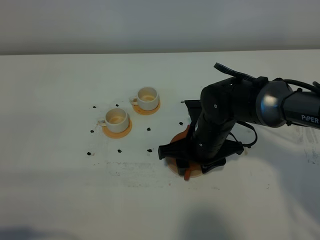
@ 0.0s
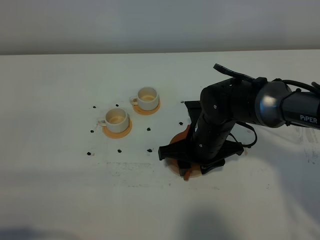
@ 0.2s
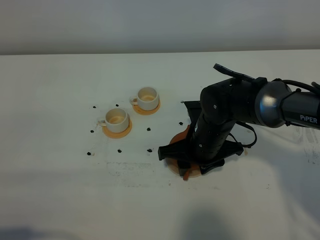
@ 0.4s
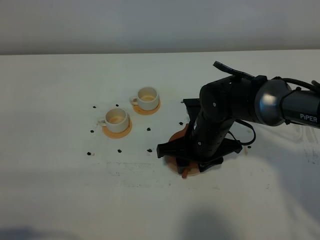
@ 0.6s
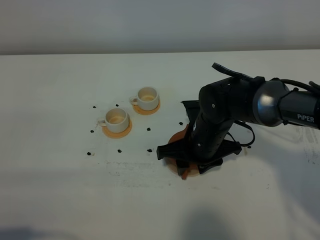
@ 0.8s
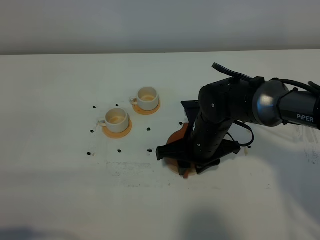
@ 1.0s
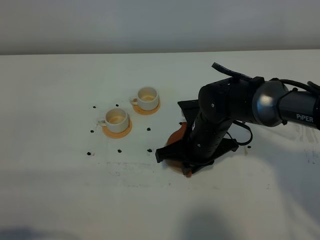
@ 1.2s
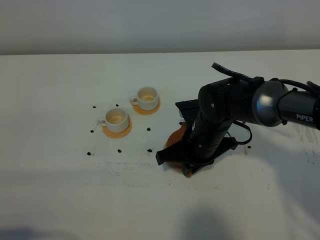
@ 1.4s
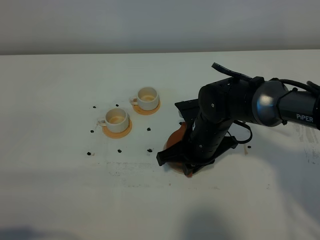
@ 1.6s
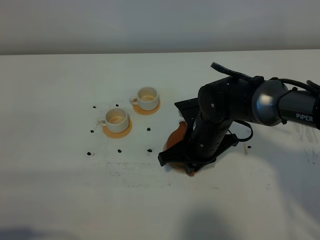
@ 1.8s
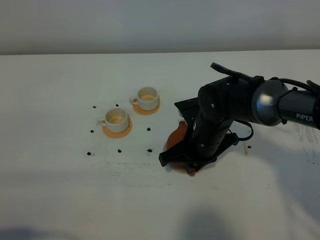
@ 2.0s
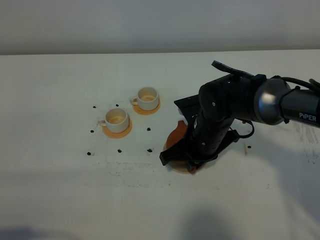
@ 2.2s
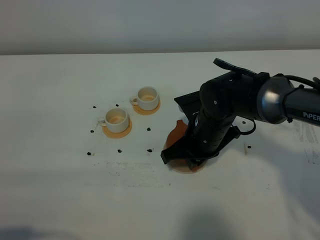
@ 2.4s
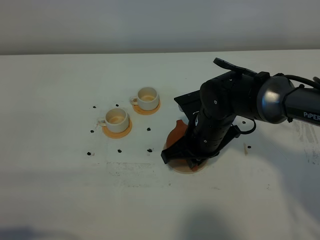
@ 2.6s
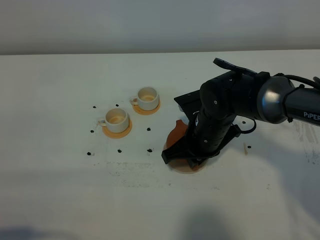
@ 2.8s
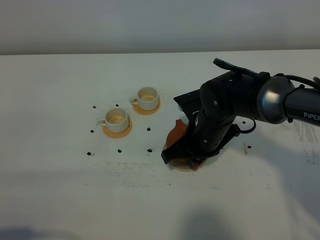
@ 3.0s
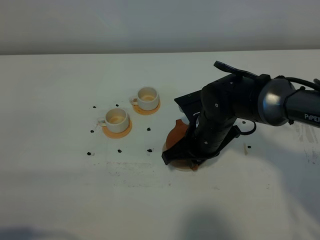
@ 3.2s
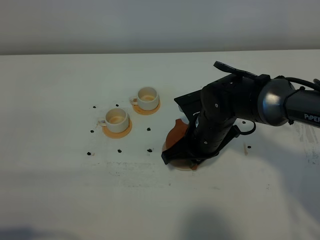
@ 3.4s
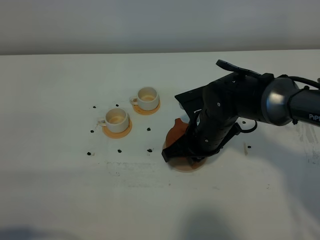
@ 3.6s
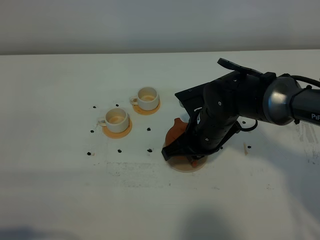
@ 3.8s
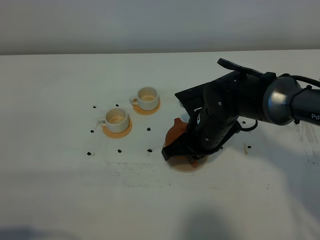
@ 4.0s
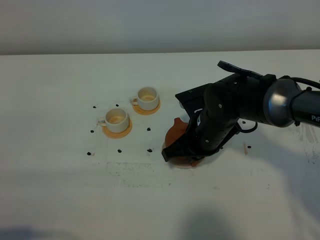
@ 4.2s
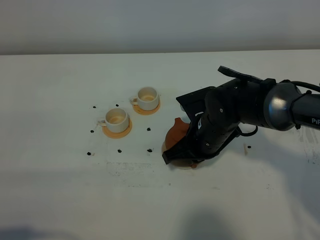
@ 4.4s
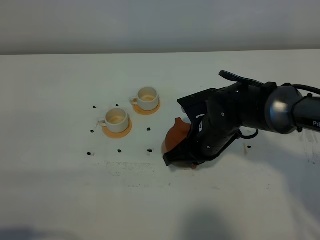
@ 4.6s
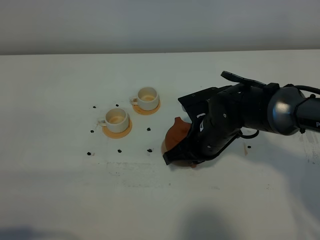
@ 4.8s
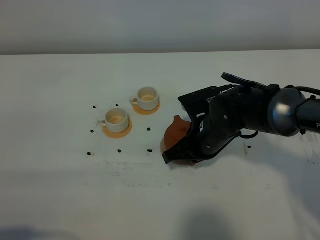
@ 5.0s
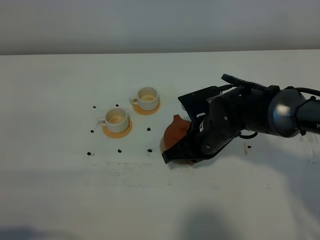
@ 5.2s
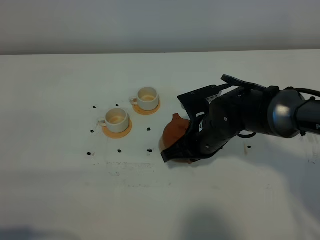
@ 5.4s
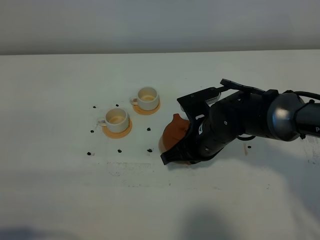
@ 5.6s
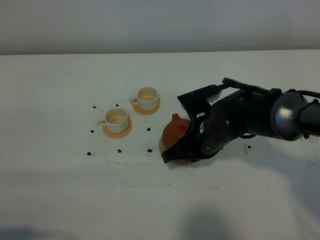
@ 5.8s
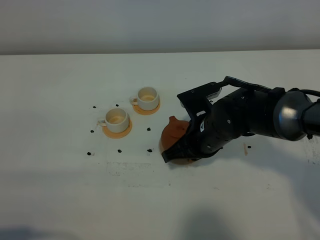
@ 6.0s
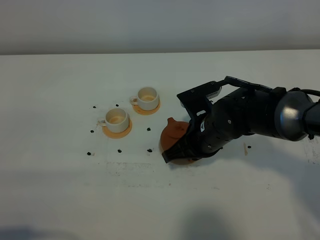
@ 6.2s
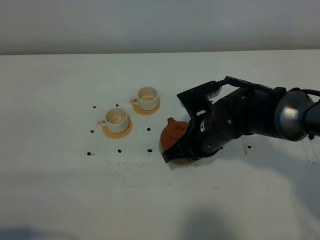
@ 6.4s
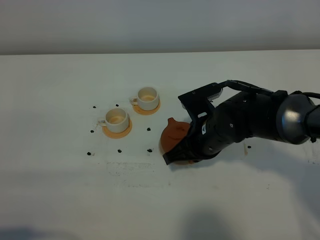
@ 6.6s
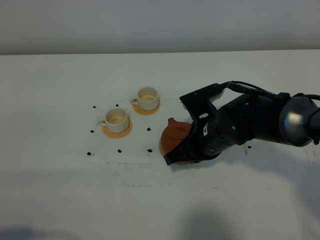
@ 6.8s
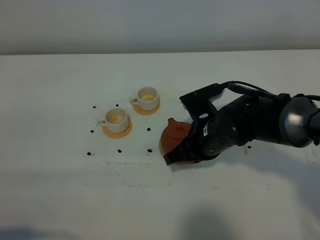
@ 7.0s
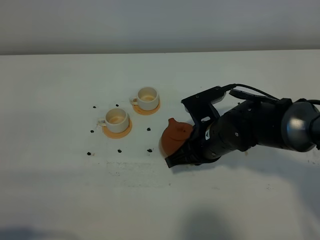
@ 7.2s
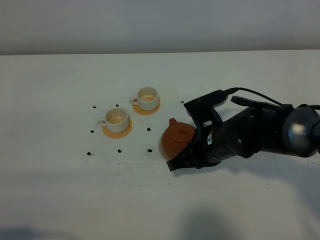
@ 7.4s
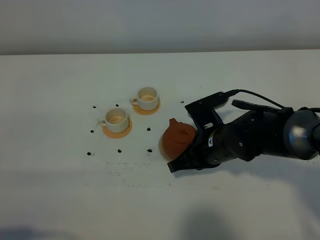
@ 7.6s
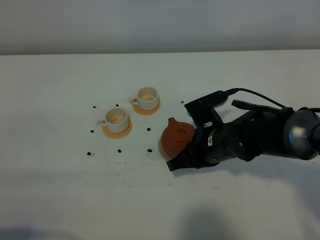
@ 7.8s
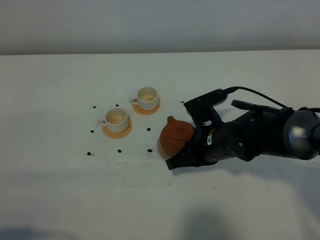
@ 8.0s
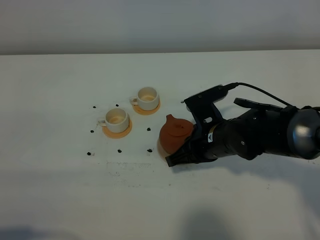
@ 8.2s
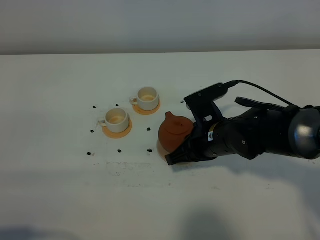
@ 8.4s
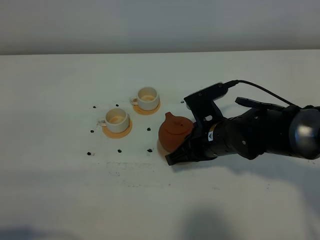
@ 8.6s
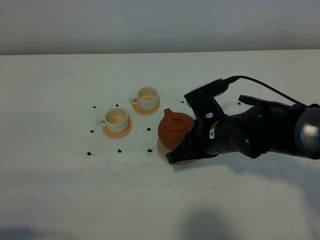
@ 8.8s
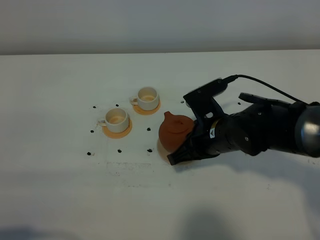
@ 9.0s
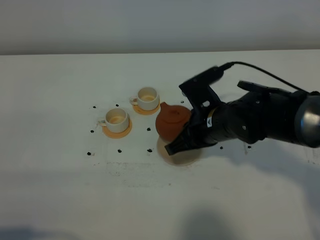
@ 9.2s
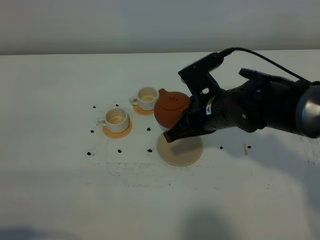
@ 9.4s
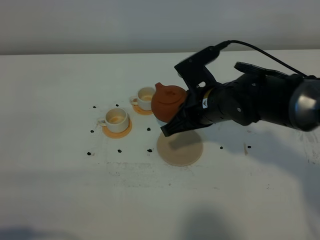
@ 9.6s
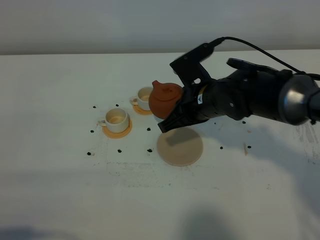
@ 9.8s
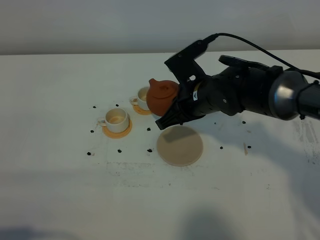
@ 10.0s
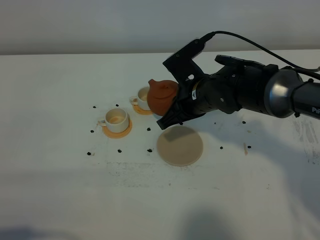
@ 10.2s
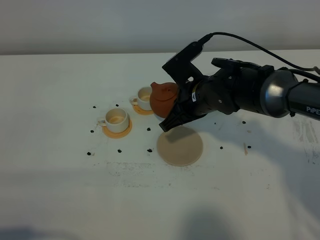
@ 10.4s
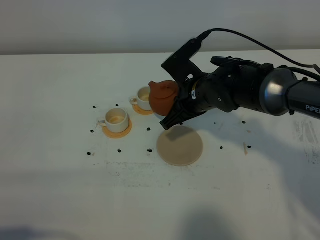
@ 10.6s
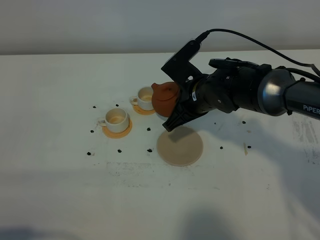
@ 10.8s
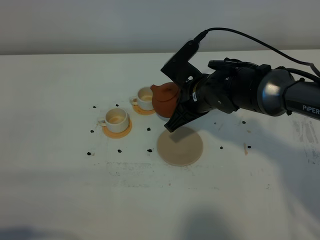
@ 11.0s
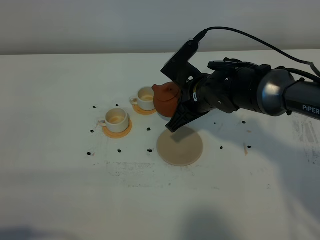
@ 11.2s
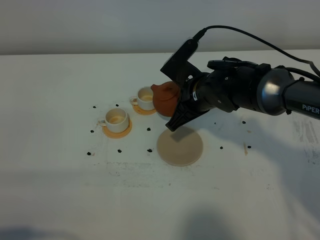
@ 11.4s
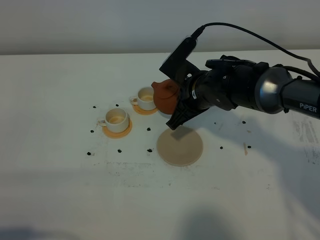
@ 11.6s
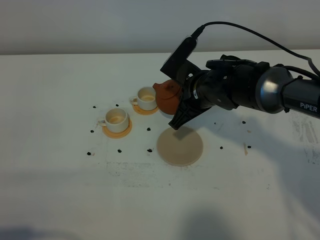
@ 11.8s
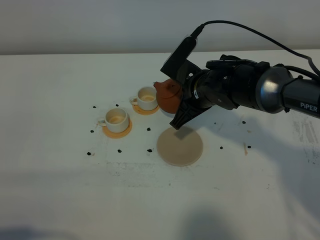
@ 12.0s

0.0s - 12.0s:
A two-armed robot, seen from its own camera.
Task of the whole recording: grasp the brown teapot and pour the tea into the two white teacups one by one, put the brown teapot back in its original place.
Step, 0.0s - 8.4s: Pick up the teapot with the right gripper.
0.0s - 1.6s: The right gripper closes.
1.6s - 3.0s: The grippers stay close to where they were, moving slightly.
3.0s - 4.4s: Neither gripper changes place.
4.4s - 7.6s: The grippers stay close to where they were, moving slightly.
7.6s - 9.0s: There are only small adjustments of the grippers.
9.0s - 10.4s: The right gripper travels forward by roughly 5 cm.
10.4s - 12.0s: The grippers make only small movements.

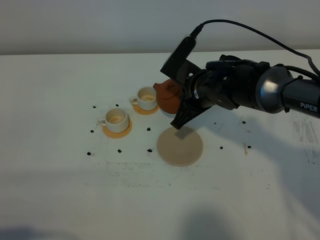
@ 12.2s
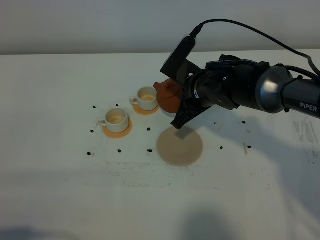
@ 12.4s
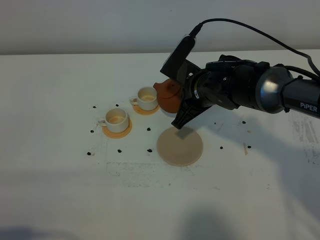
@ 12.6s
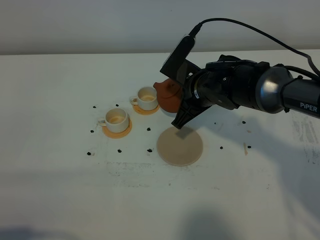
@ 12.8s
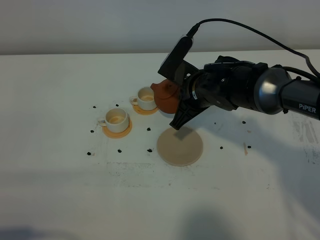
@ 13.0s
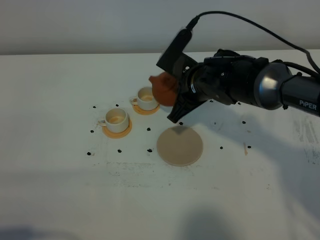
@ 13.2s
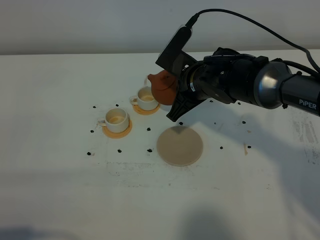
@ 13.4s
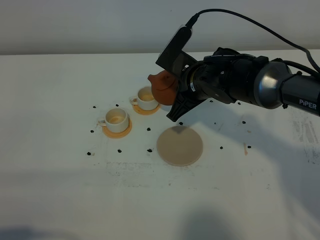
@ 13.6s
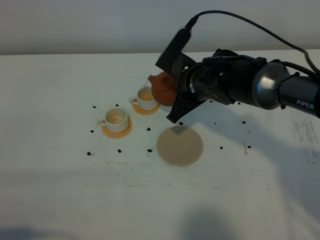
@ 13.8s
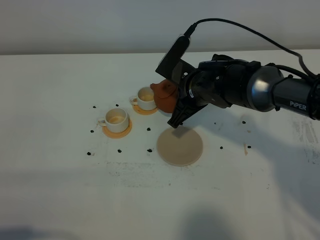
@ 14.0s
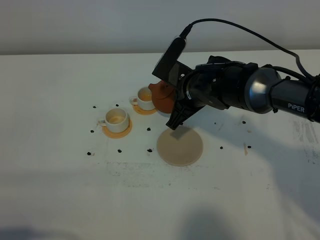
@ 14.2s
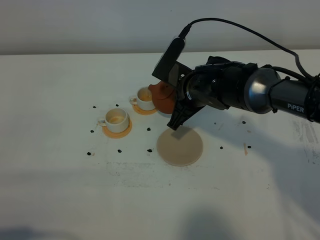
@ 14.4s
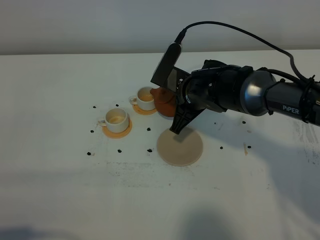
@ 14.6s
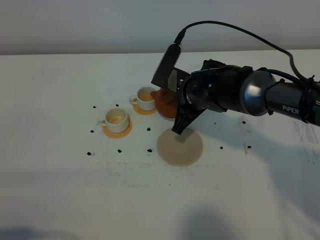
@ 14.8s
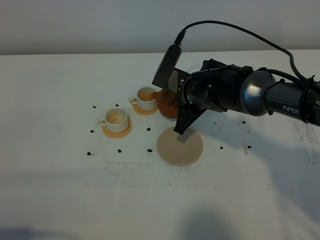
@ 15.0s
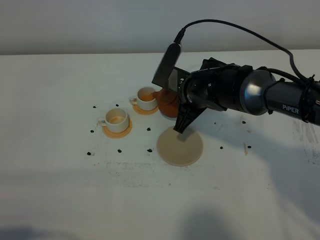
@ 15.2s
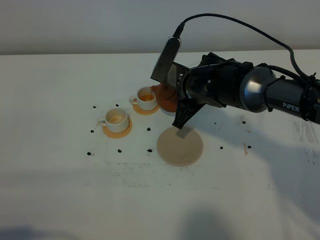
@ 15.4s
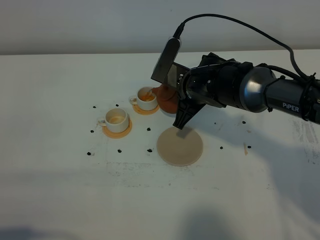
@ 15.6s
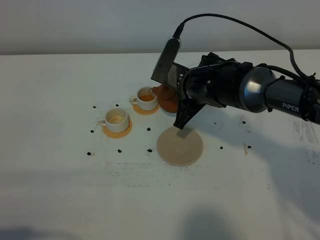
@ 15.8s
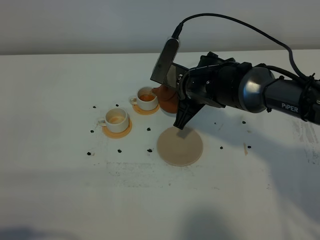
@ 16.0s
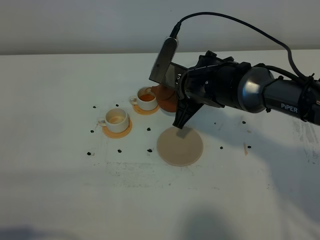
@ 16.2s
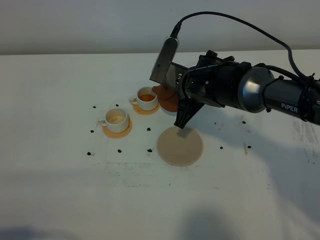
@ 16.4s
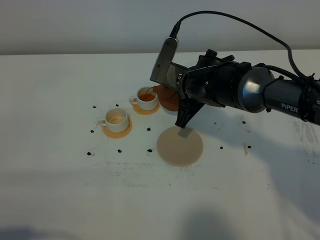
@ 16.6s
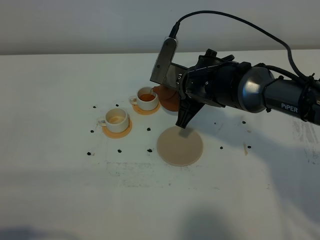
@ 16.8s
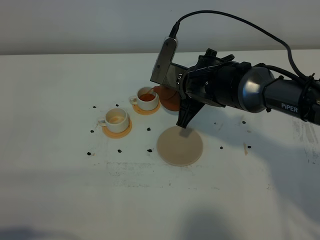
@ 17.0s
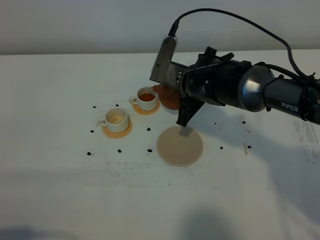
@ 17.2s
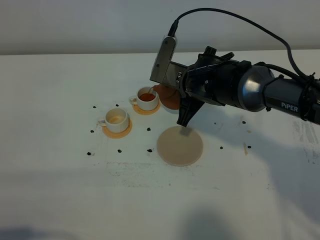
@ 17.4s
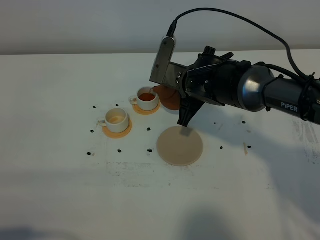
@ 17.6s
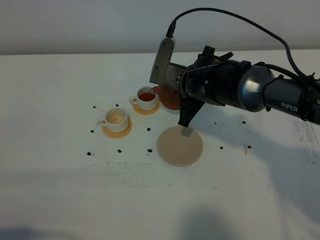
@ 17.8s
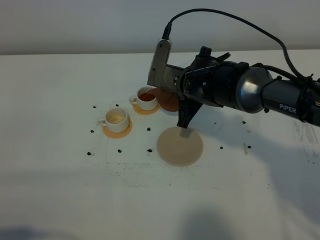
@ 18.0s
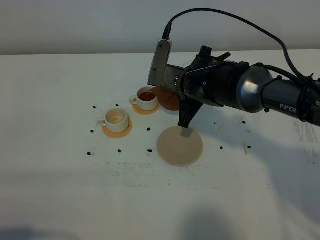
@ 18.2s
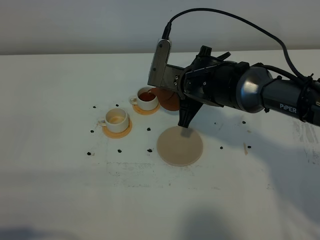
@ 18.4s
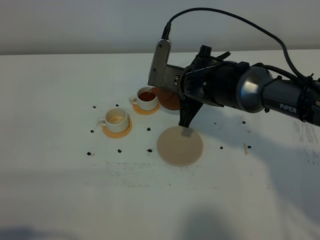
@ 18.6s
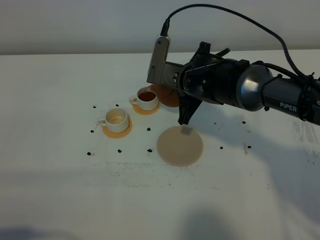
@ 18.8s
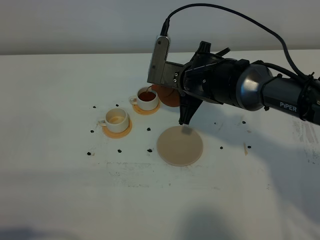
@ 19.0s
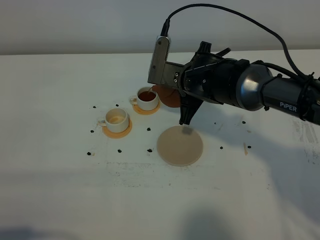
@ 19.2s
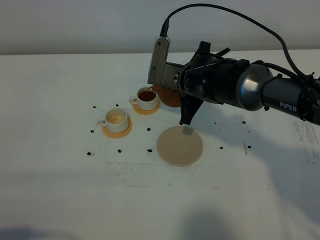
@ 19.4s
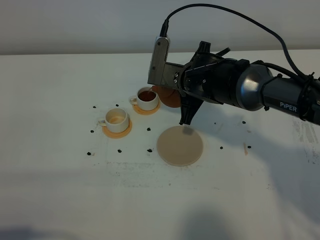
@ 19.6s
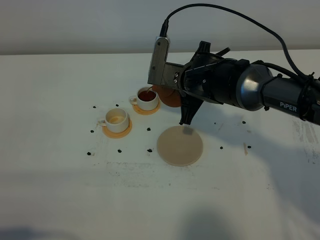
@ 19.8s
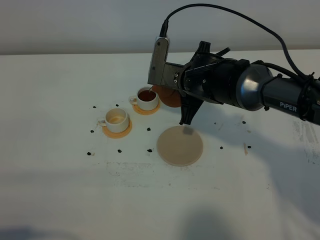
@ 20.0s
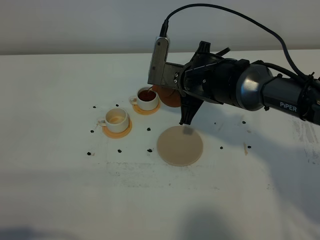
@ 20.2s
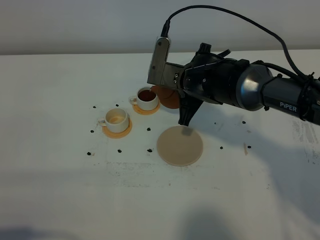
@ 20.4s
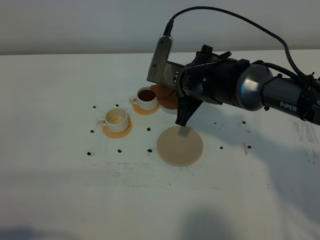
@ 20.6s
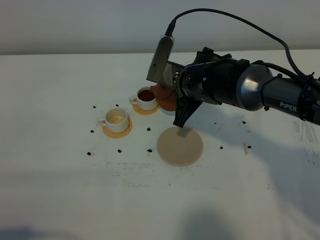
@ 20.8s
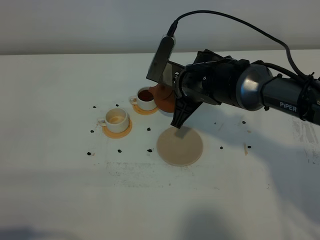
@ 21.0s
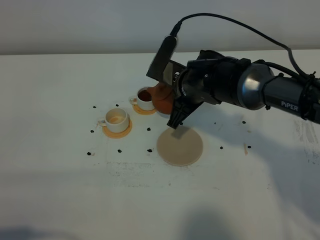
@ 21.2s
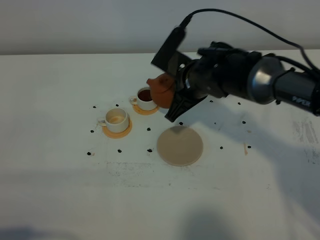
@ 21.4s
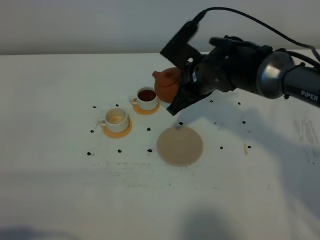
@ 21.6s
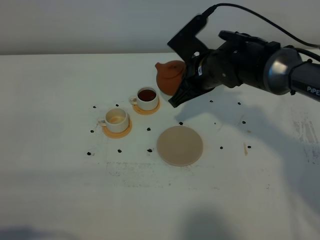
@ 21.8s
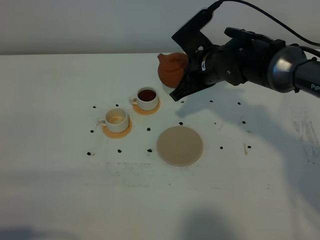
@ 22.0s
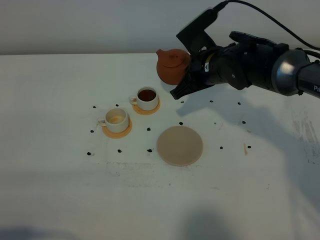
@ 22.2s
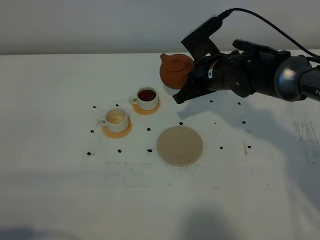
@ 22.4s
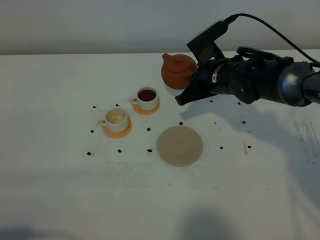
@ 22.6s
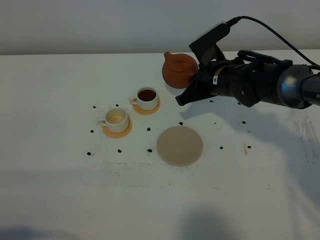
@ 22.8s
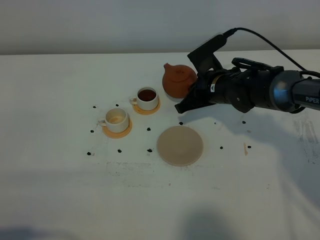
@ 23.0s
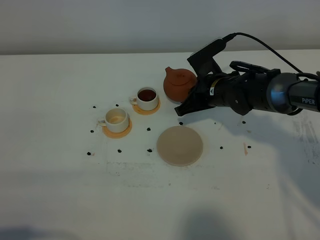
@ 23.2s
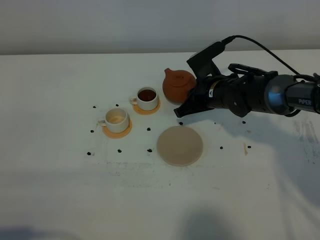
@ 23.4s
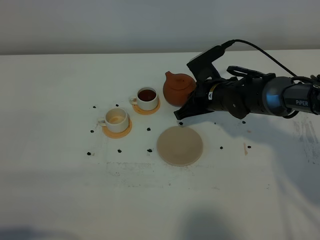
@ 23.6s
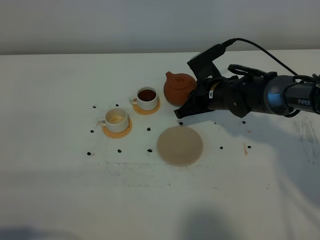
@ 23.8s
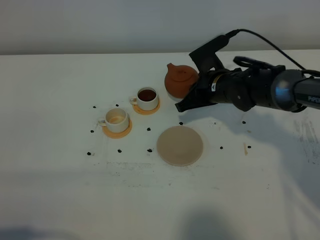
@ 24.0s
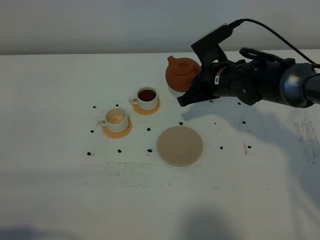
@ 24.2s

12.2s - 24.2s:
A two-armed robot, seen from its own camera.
Task of the whole recording: grasp the brown teapot and pour the tea into the two white teacups one by one, put the brown teapot back in its original place.
12.2s - 15.2s: The grippers move only a little.
15.2s - 16.6s: Neither gripper changes place.
16.6s - 18.2s: The grippers stay close to where they were, moving slightly.
18.2s - 19.8s: Both grippers stay put.
19.8s - 21.2s: There are only small adjustments of the grippers.
21.2s - 22.6s: The right gripper goes roughly 5 cm to the right.
22.6s - 24.2s: The grippers stay close to where they were, moving slightly.
